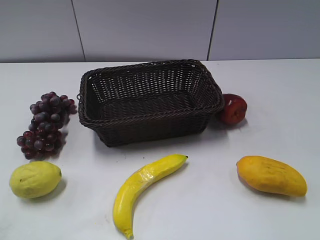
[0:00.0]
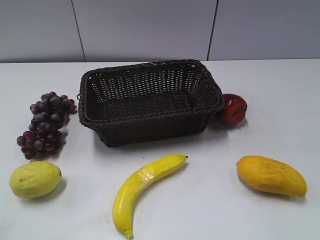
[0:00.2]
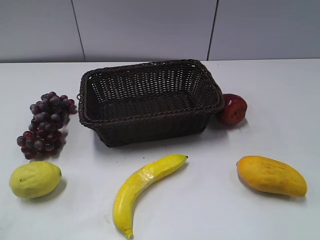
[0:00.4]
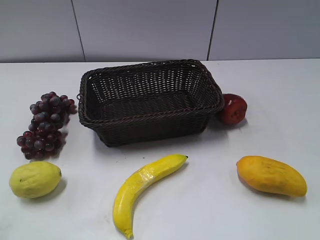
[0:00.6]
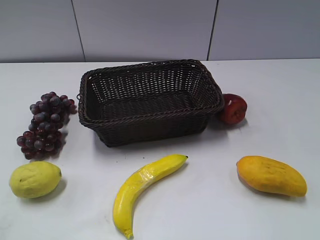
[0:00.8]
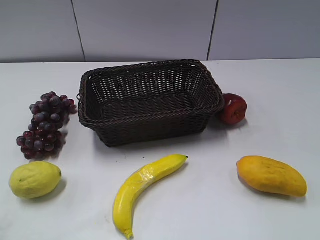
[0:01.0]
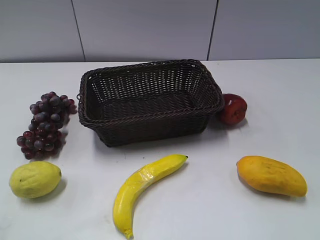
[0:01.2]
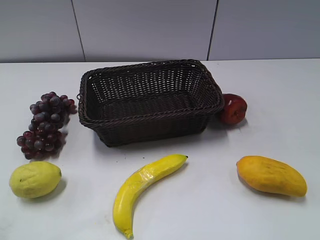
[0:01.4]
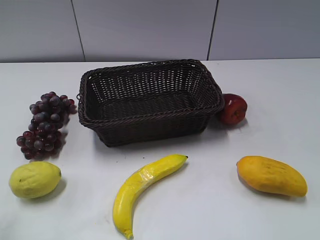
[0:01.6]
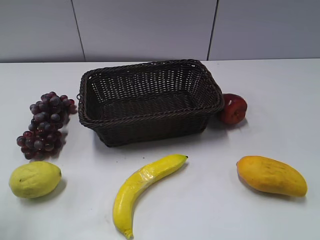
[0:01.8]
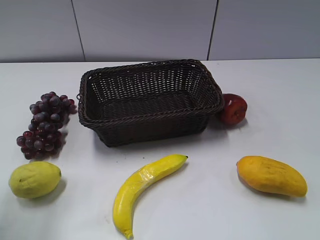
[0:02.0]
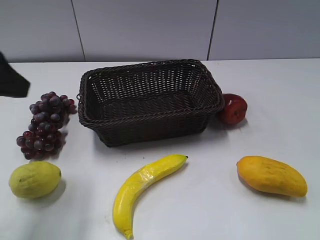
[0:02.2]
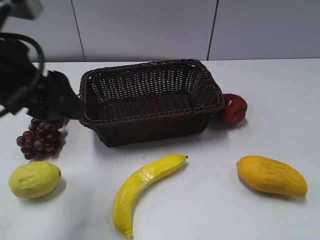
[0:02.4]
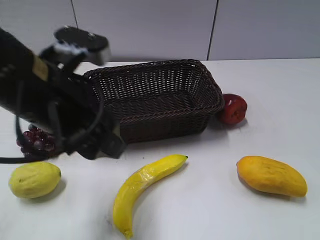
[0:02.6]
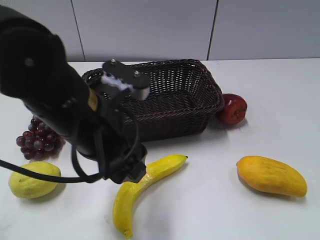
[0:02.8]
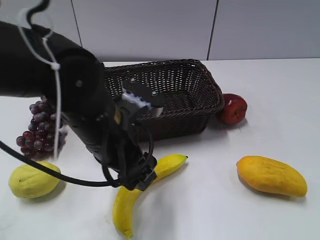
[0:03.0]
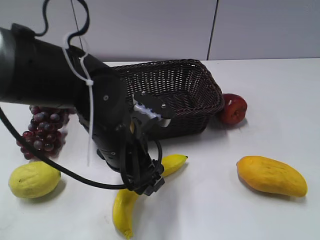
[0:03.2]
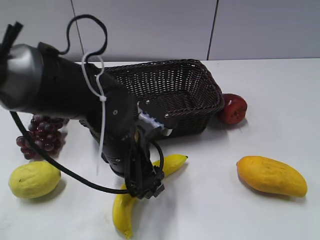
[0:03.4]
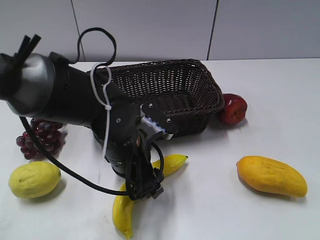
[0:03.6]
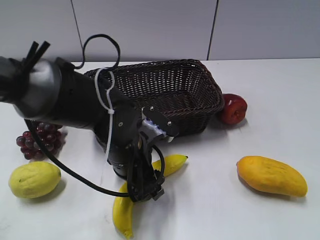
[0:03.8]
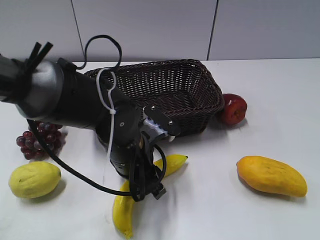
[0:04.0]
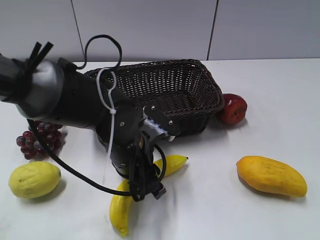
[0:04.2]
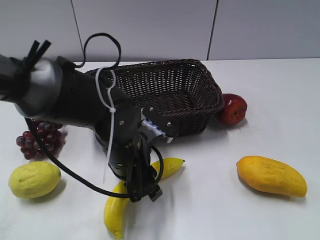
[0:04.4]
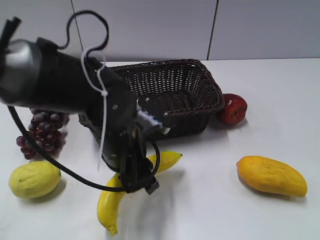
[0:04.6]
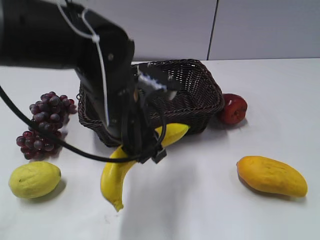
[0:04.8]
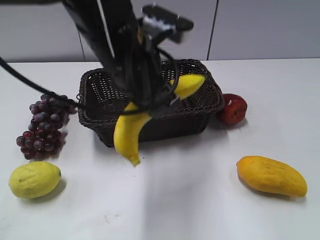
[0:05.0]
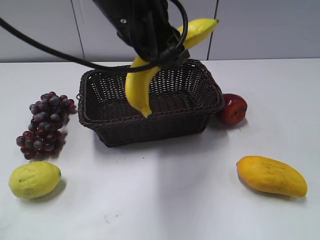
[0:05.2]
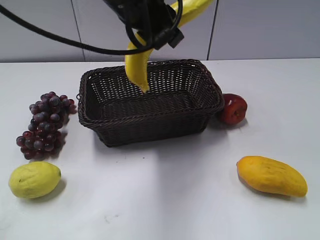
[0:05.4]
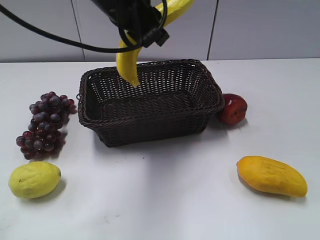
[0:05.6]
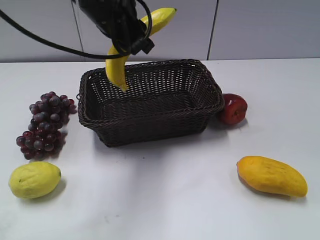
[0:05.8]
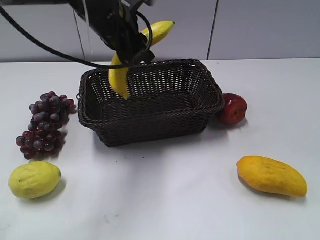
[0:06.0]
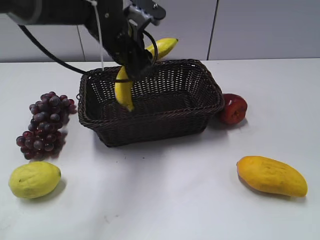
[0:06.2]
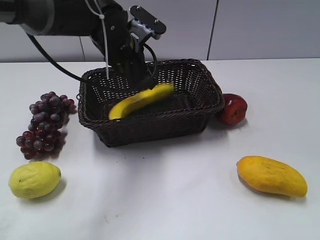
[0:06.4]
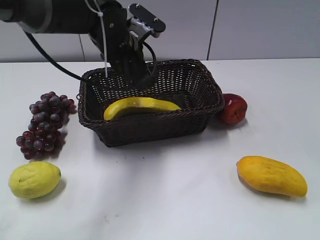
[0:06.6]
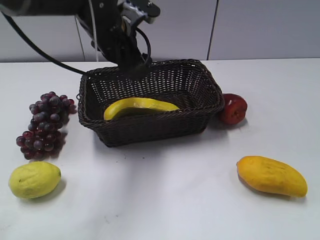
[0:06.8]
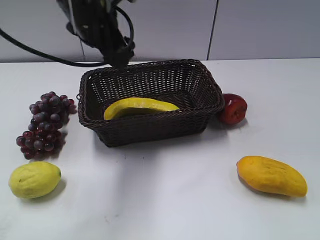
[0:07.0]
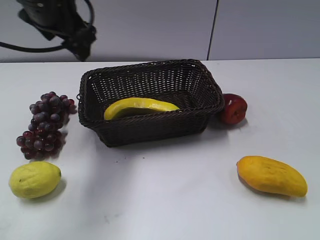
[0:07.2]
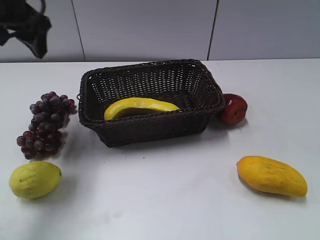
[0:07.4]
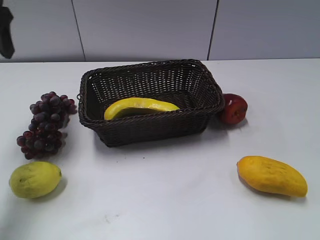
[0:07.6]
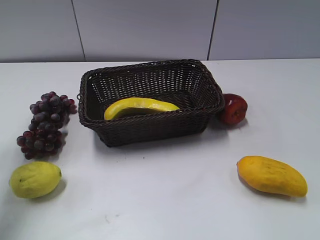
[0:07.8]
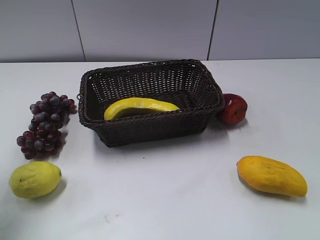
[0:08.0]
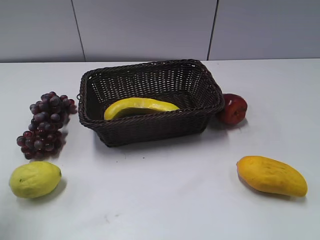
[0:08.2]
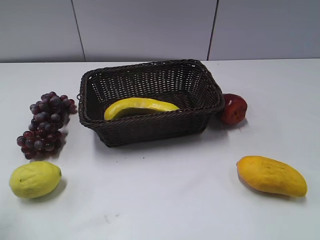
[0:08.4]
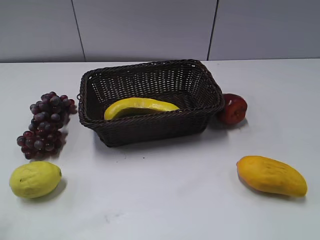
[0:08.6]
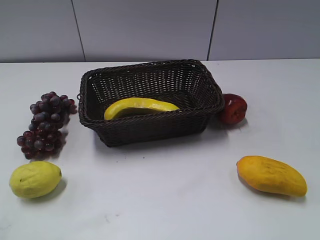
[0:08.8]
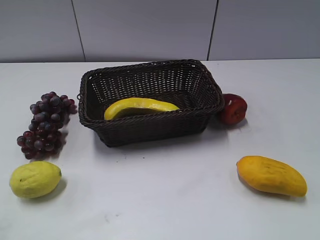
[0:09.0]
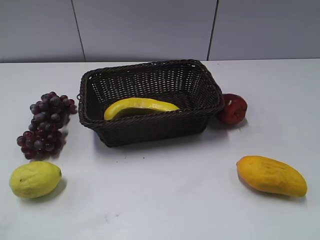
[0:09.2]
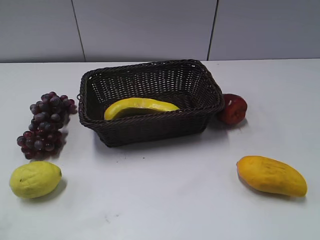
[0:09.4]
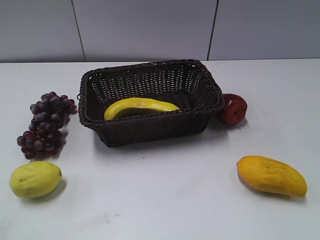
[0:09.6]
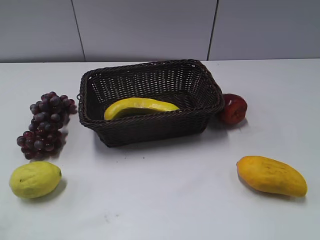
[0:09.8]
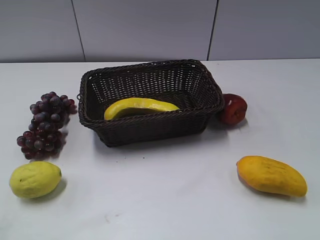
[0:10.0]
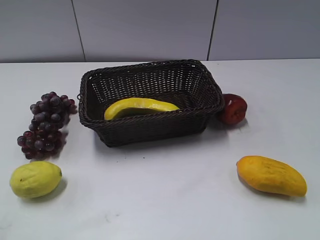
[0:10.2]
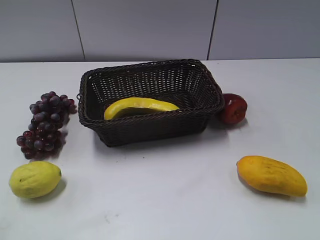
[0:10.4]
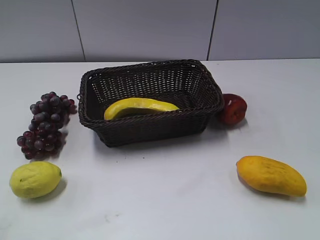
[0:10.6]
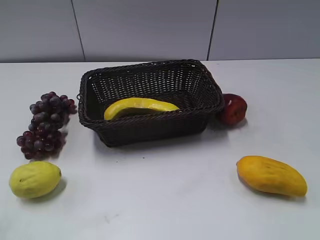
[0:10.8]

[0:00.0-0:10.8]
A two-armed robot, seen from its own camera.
Step, 0:02.2 to 0:04.0: Grasp the banana with left gripper.
Step, 0:04.4 to 0:06.8: Place the banana in the basket with left gripper.
0:01.6 to 0:03.0: The left gripper goes about 30 cm to the right, forward and downward.
0:03.0 to 0:04.6: The left gripper heads downward, covering about 10 cm, and closes its fingers.
0:04.6 to 0:06.2: The left gripper goes approximately 20 cm forward and upward.
0:06.2 to 0:07.8: The left gripper is displaced to the left by about 20 cm, and opens up.
0:07.8 to 0:09.2: The left gripper travels backward by roughly 30 cm.

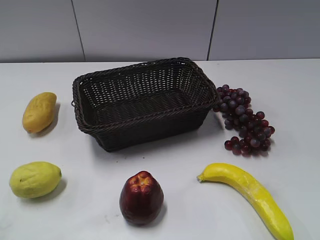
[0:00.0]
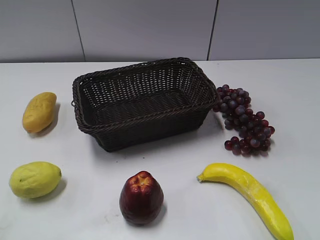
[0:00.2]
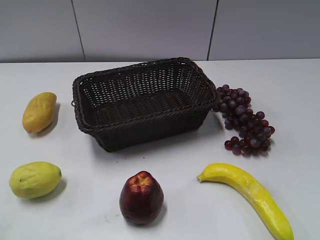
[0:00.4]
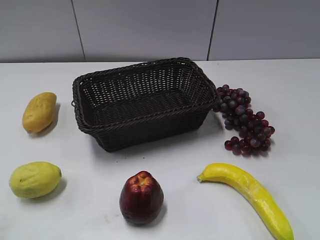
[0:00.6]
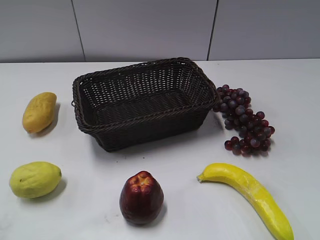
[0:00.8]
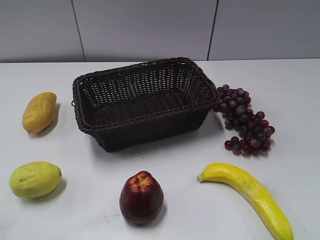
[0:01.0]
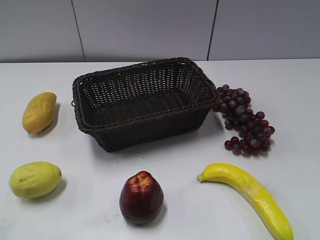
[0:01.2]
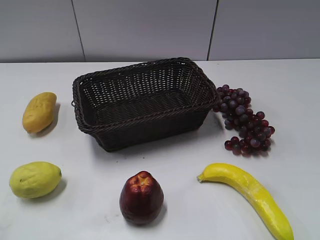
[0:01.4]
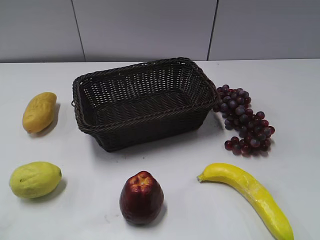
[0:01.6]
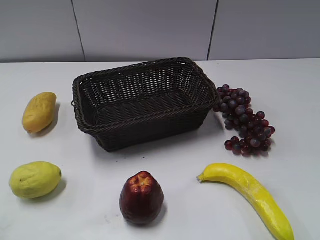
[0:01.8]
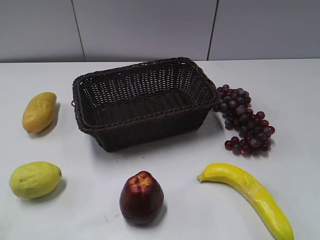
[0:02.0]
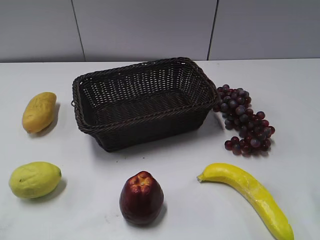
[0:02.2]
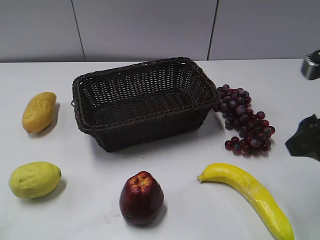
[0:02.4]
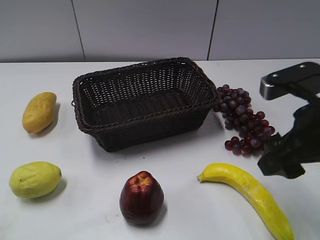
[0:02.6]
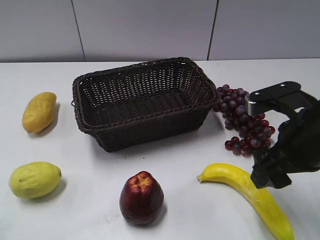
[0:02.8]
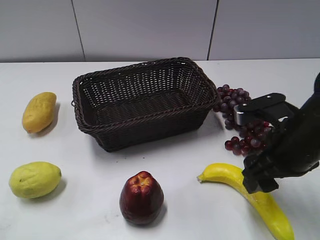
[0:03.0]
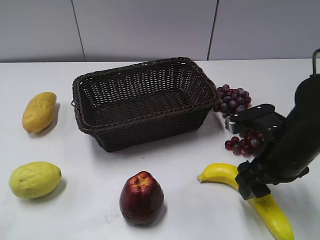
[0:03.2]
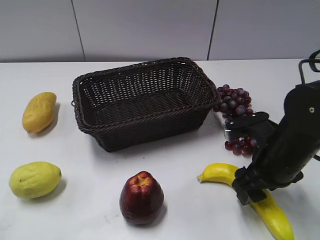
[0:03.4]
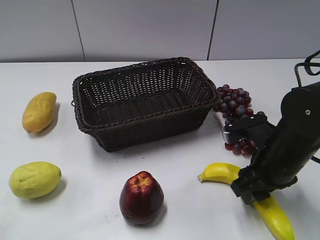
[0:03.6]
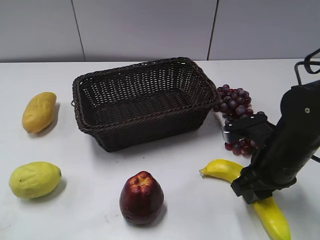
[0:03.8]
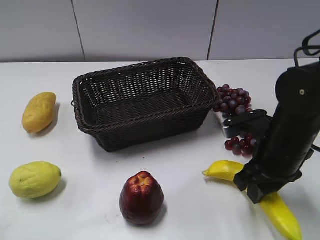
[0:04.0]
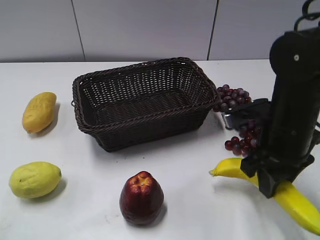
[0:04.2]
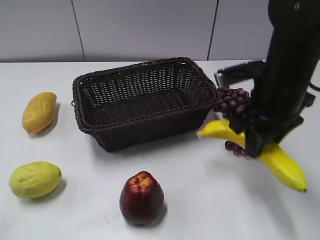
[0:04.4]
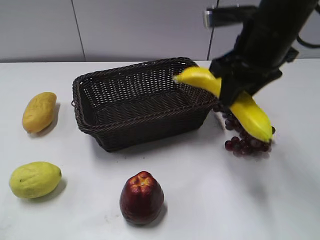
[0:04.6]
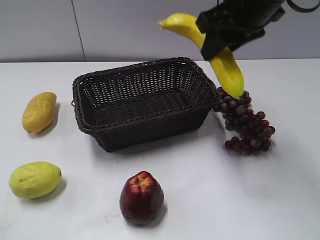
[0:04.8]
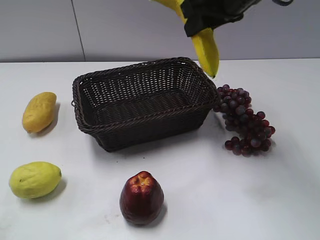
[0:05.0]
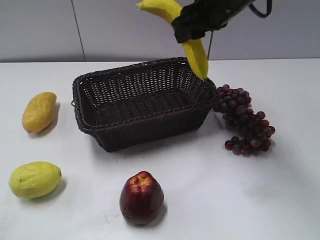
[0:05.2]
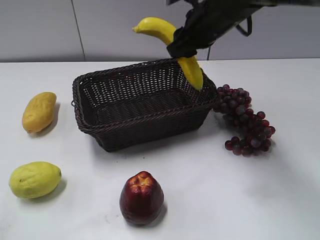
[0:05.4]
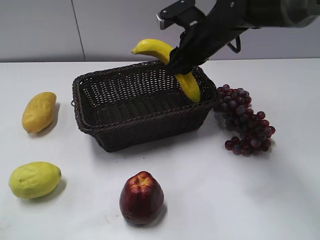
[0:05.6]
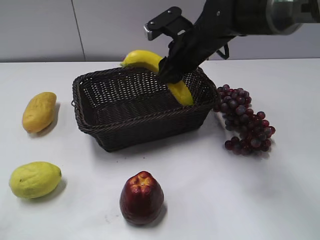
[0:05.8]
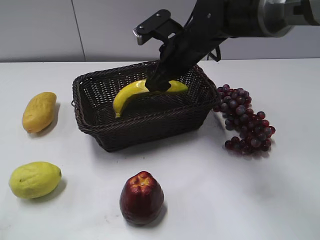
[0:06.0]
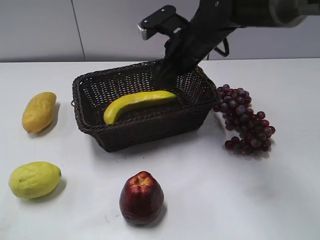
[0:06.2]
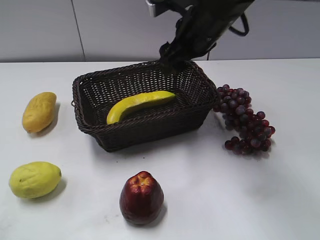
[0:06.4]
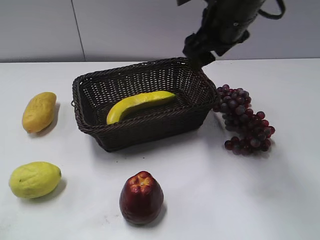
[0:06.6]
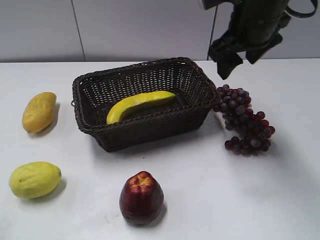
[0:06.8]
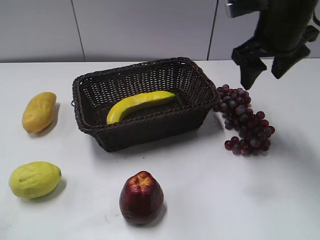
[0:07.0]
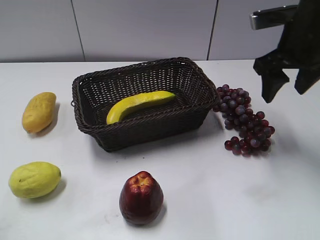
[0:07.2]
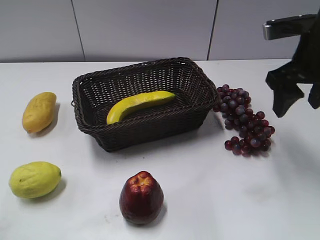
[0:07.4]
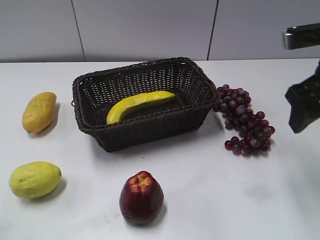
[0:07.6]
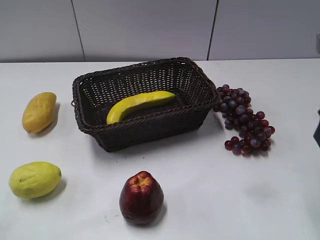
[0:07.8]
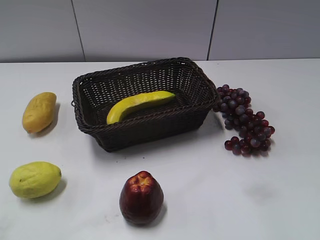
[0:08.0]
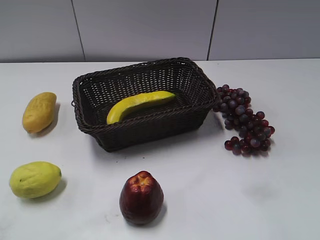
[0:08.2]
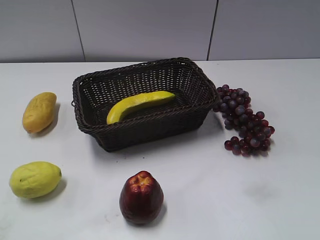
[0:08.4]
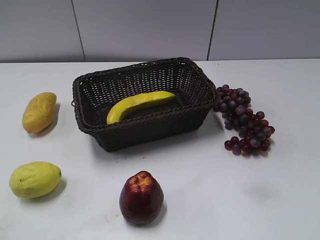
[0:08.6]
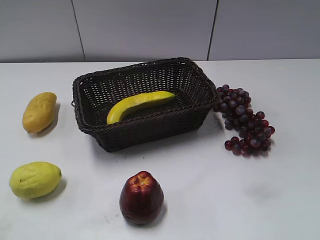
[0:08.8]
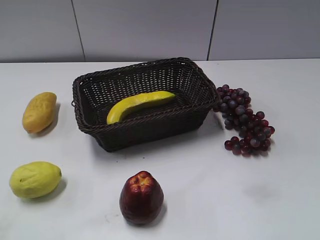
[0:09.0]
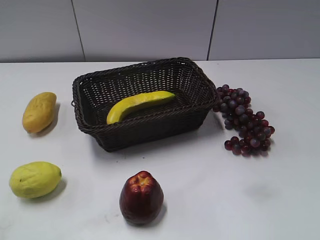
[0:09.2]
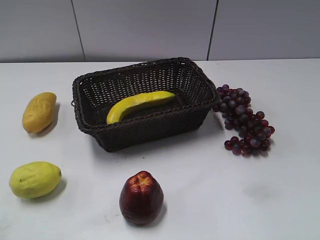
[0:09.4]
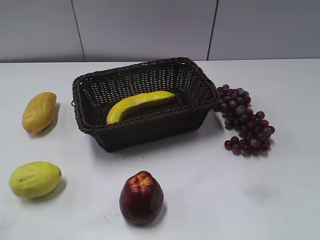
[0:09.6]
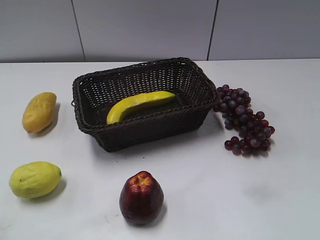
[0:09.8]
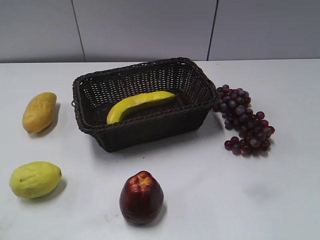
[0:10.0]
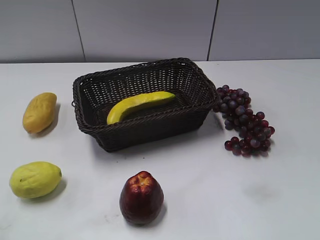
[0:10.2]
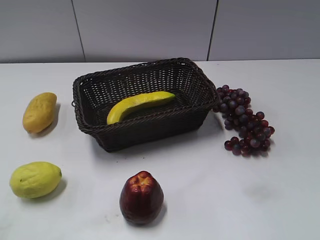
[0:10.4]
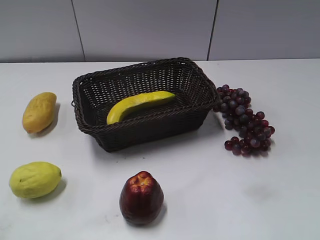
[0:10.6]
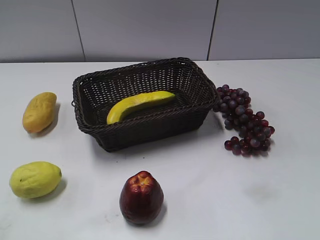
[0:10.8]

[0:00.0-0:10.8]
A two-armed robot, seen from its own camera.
Step, 0:02.4 to 0:04.2: Grasp the banana with right gripper.
Step, 0:04.4 to 0:06.0: Place the banana in the basket with right gripper.
0:01.6 to 0:03.0: The right gripper goes approximately 25 cm forward, downward and to the left.
0:03.0 to 0:04.6: The right gripper shifts about 15 cm upward, forward and to the left, and closes up.
0:04.6 to 0:06.2: The right gripper is displaced forward, to the left and downward by roughly 15 cm, and opens.
0:06.2 to 0:07.8: The right gripper goes some 25 cm to the right and backward.
